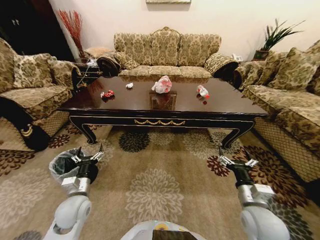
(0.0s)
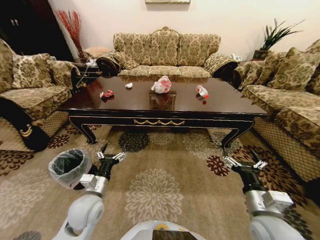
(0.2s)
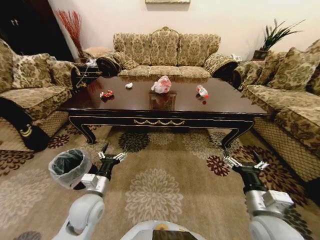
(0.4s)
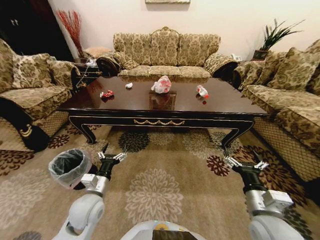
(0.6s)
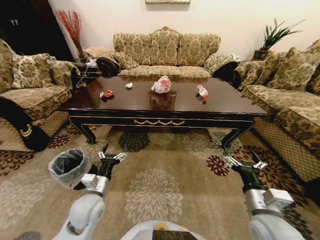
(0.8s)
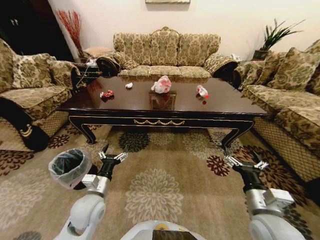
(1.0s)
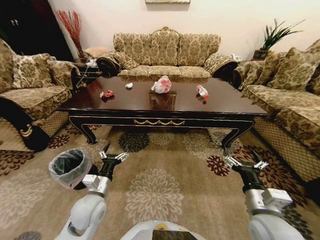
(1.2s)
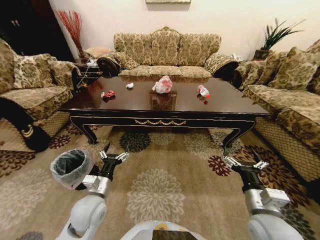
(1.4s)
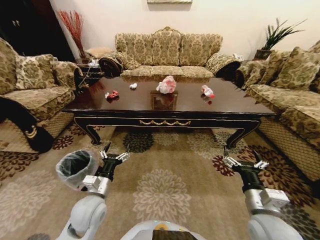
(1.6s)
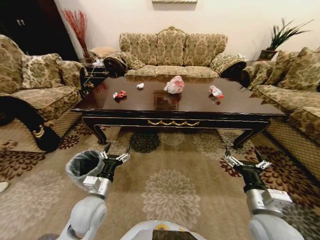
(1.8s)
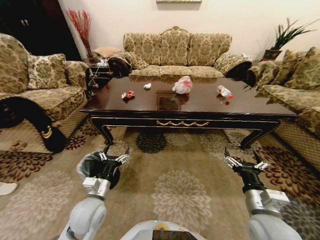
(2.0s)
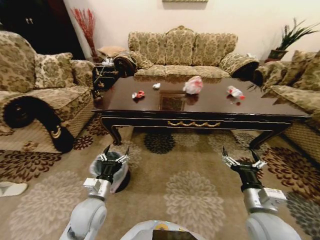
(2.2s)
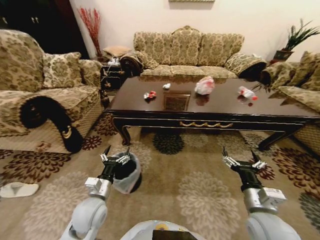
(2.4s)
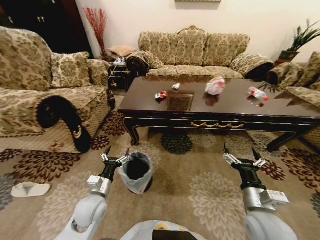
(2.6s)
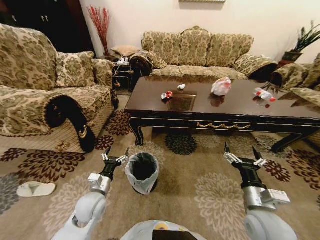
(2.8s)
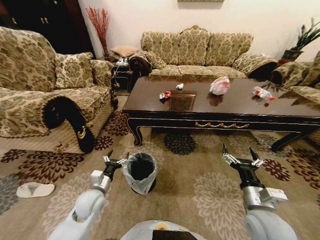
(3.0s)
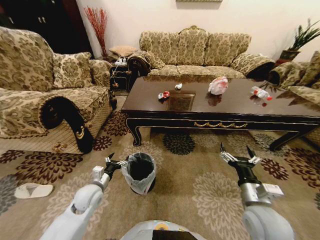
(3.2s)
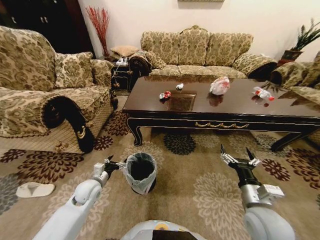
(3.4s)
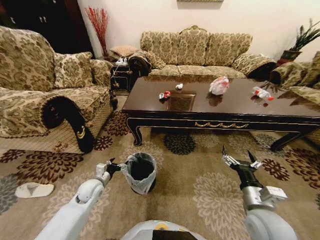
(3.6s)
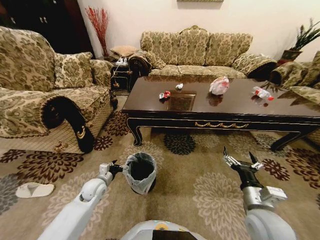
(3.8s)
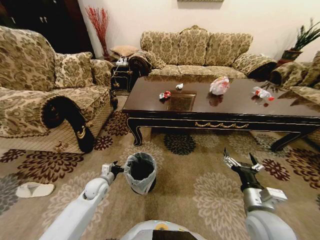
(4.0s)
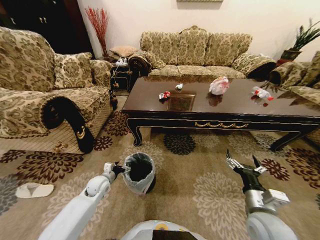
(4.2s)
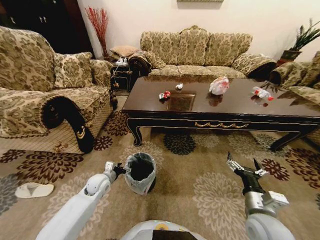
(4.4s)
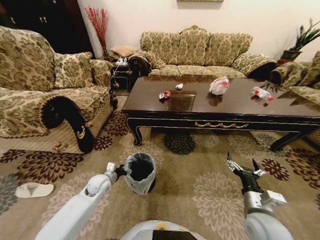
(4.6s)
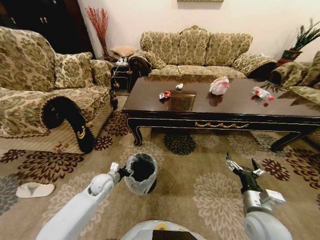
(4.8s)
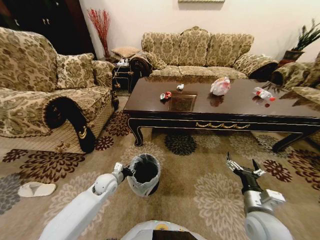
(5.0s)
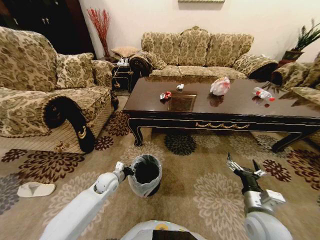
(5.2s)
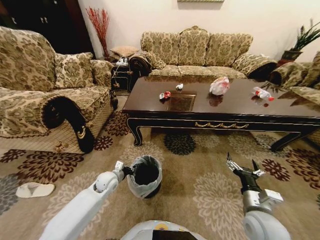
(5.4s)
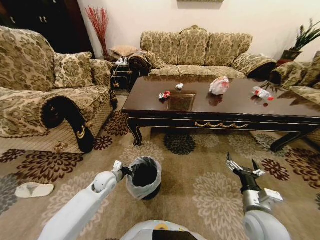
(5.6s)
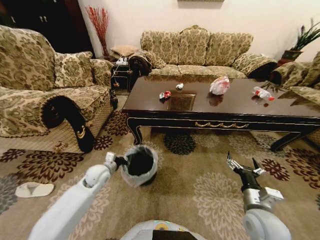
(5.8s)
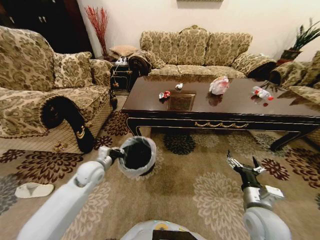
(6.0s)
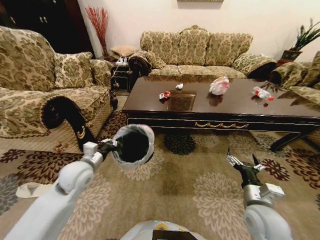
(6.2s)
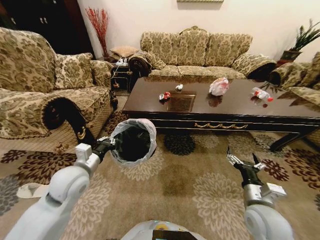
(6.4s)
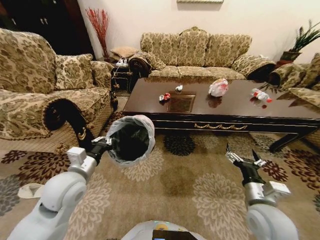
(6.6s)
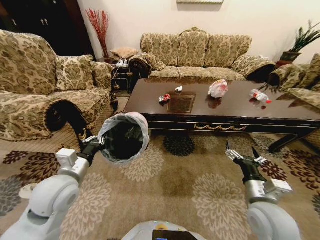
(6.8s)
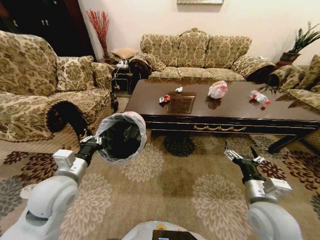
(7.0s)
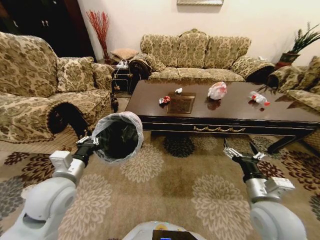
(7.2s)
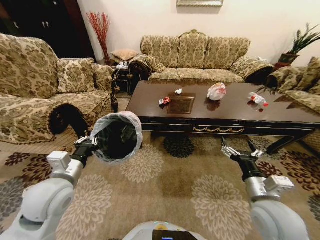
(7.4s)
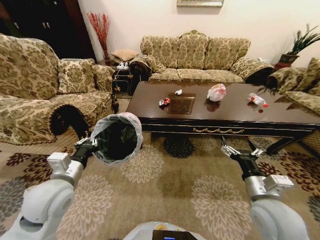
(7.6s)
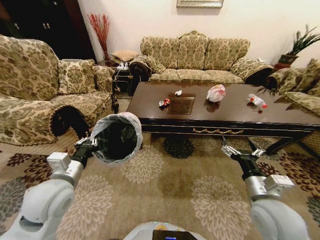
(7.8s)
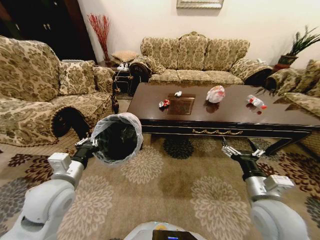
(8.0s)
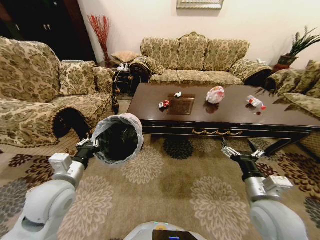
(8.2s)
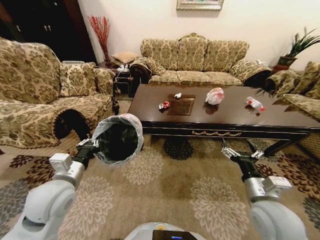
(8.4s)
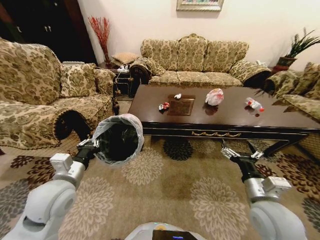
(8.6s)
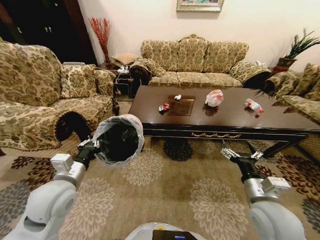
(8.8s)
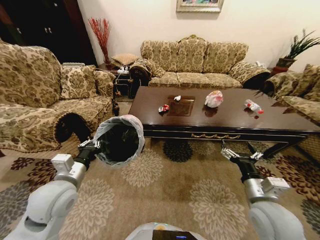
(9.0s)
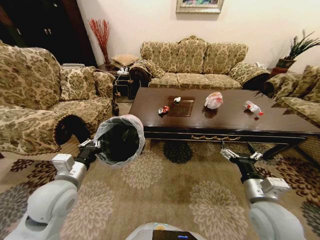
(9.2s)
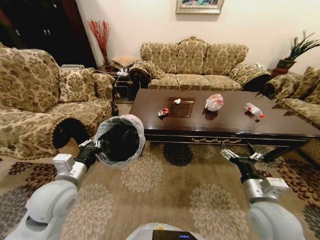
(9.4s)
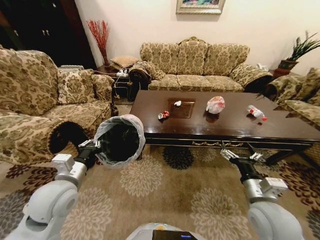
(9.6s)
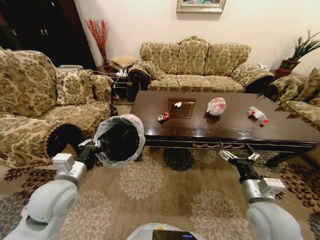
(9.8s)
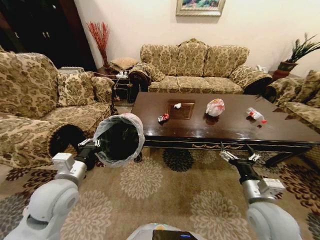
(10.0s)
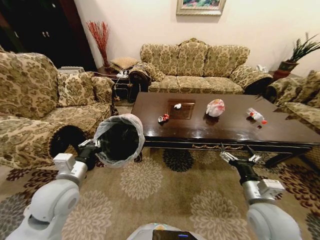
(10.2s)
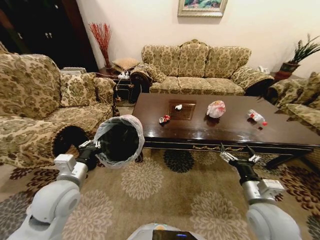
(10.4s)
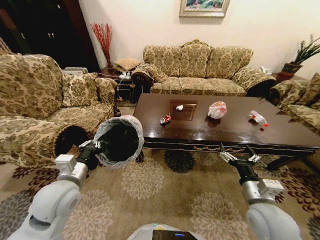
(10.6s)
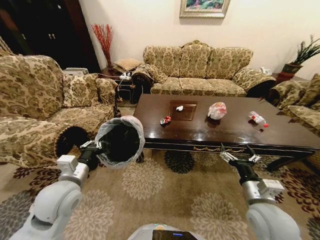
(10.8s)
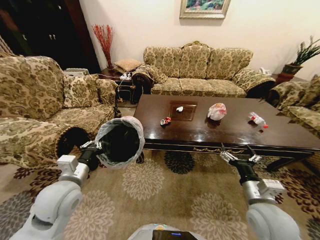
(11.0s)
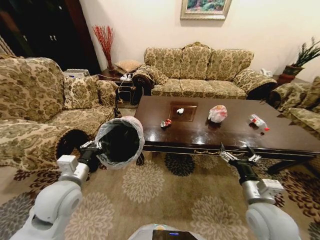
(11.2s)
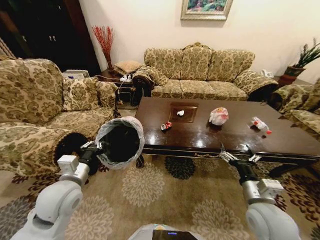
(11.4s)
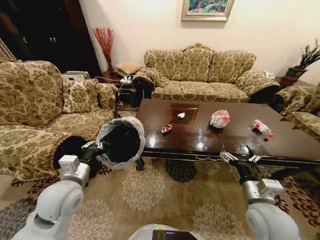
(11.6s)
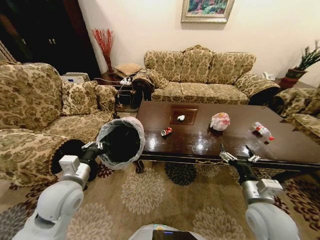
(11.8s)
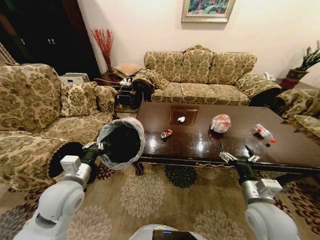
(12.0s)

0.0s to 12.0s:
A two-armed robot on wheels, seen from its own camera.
Task of the whole recording: Move to the front of the table and place the trash on the table into the trash bin.
1.6s to 3.0s: The left gripper moves downward, some 5 cm.
3.0s to 4.4s: The left gripper is displaced forward by roughly 10 cm.
4.4s to 6.0s: The left gripper goes approximately 10 cm upward, and closes its fingers.
6.0s to 7.6s: The left gripper travels backward and upward by about 15 cm. Meanwhile the right gripper moves upward, roughly 5 cm.

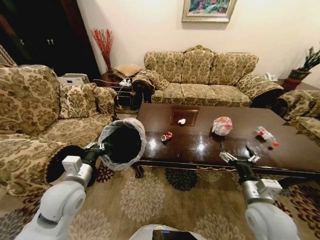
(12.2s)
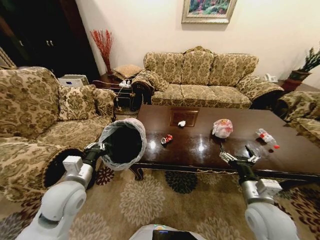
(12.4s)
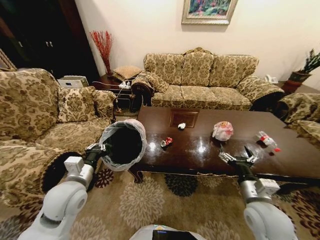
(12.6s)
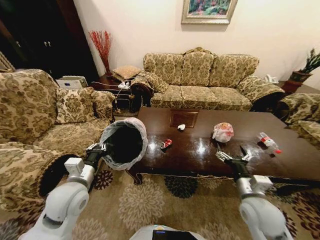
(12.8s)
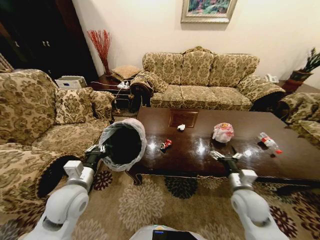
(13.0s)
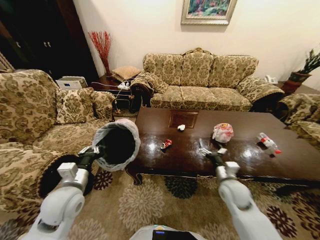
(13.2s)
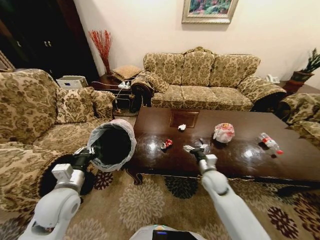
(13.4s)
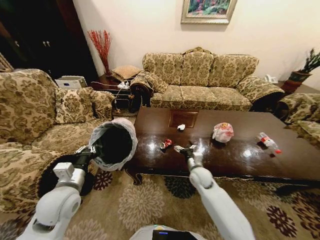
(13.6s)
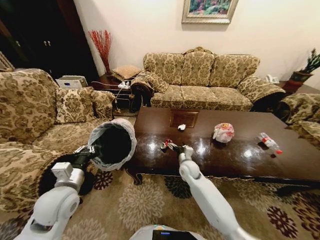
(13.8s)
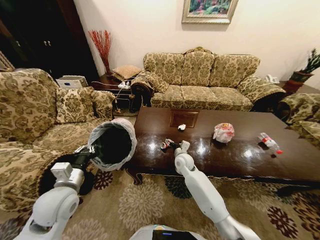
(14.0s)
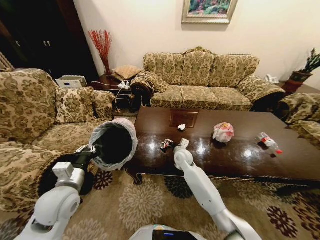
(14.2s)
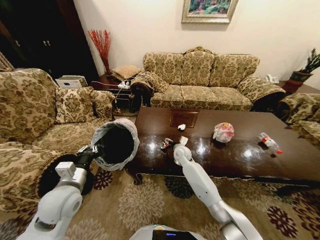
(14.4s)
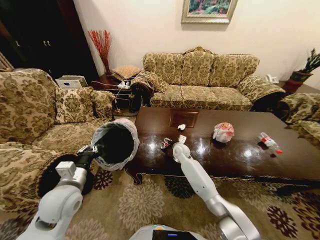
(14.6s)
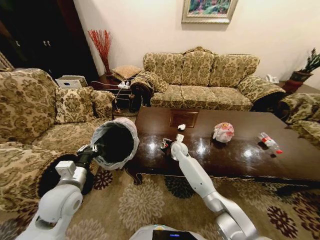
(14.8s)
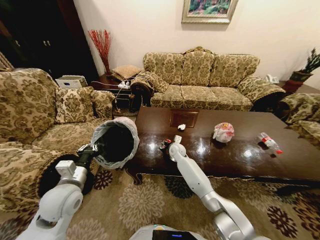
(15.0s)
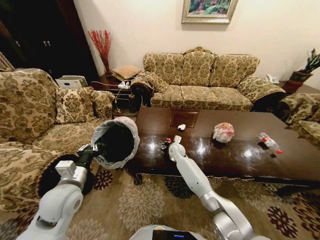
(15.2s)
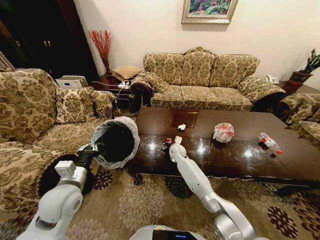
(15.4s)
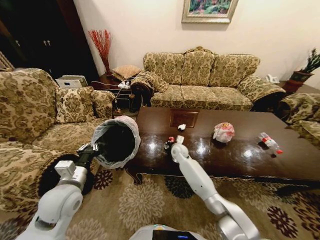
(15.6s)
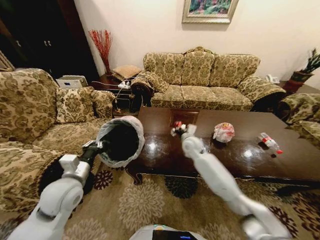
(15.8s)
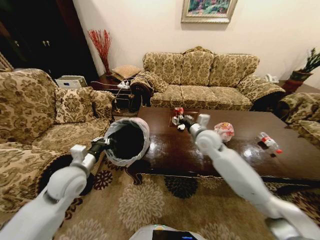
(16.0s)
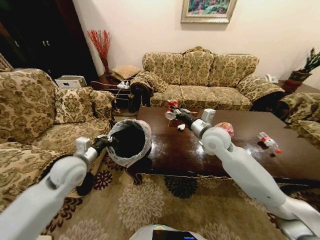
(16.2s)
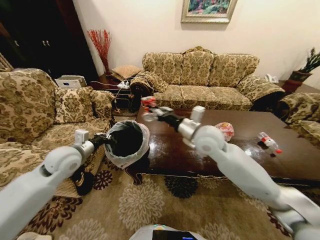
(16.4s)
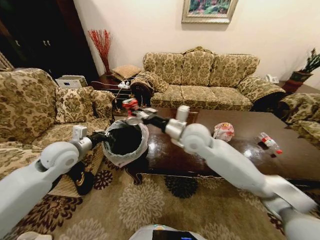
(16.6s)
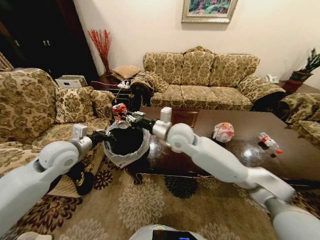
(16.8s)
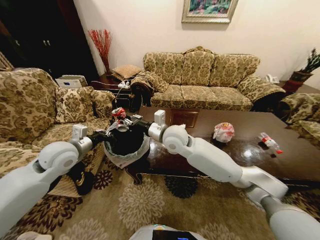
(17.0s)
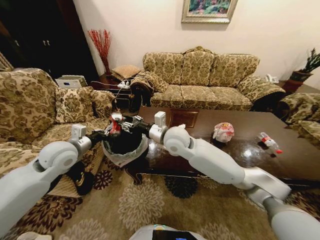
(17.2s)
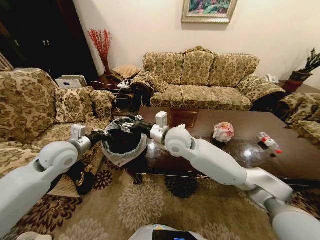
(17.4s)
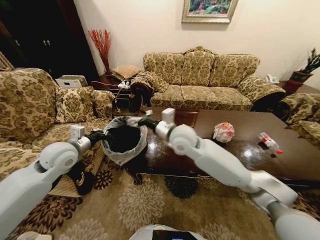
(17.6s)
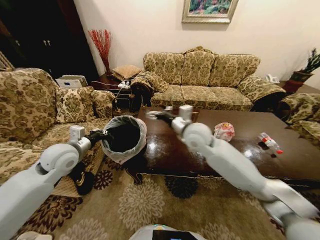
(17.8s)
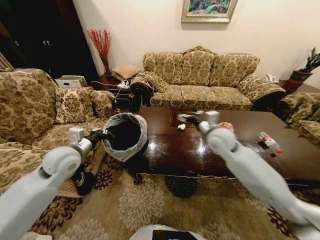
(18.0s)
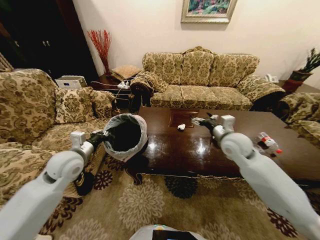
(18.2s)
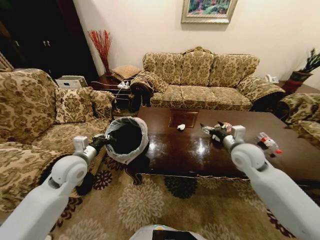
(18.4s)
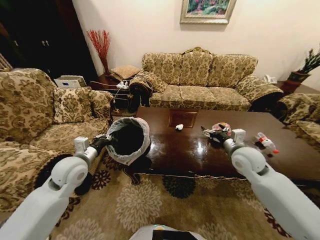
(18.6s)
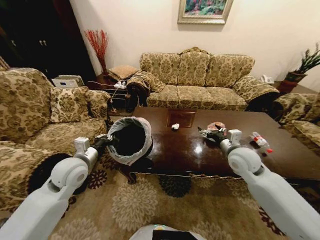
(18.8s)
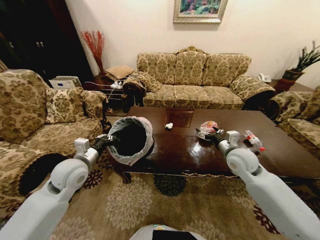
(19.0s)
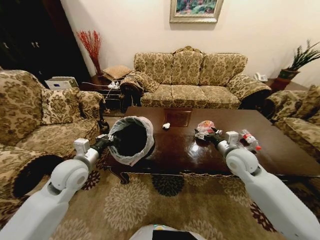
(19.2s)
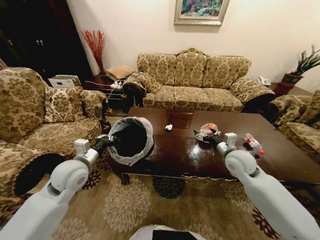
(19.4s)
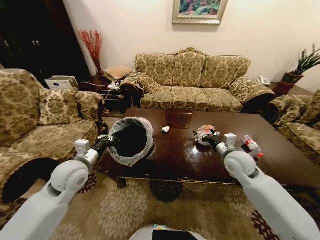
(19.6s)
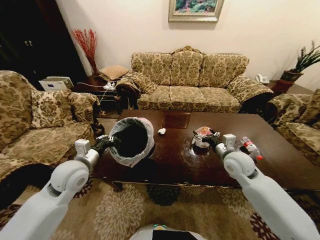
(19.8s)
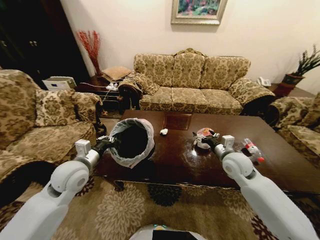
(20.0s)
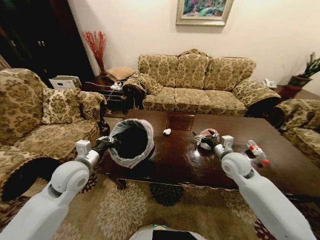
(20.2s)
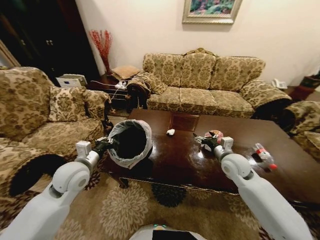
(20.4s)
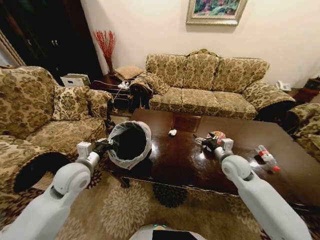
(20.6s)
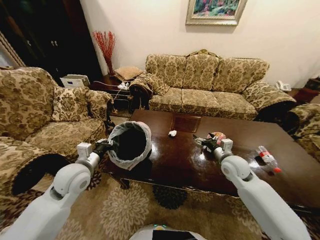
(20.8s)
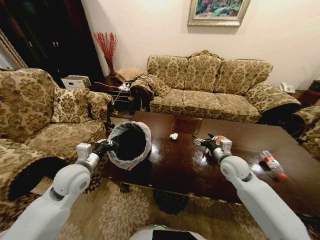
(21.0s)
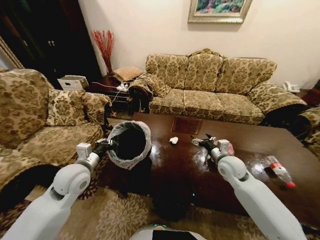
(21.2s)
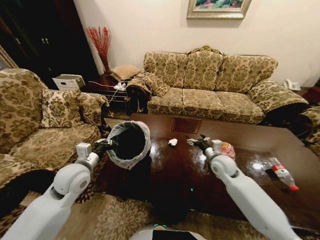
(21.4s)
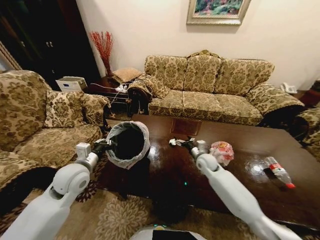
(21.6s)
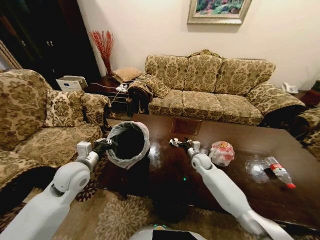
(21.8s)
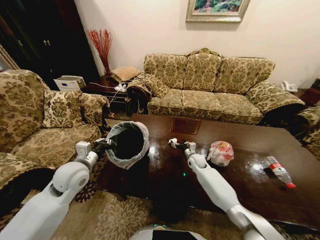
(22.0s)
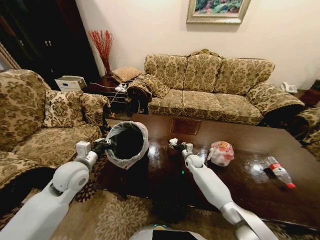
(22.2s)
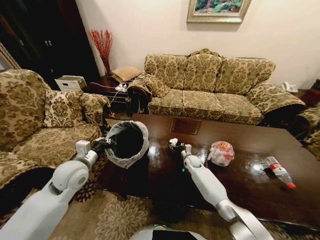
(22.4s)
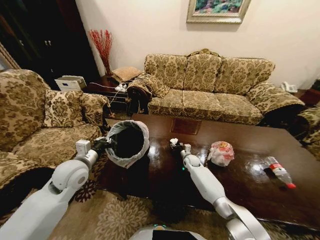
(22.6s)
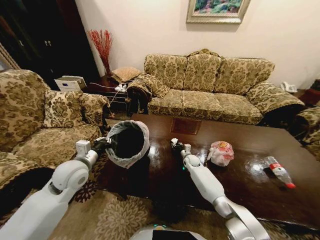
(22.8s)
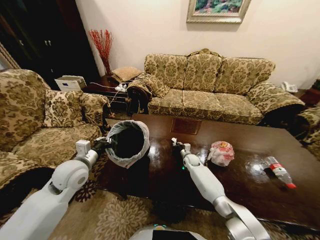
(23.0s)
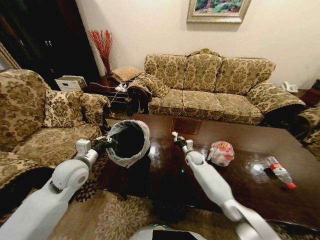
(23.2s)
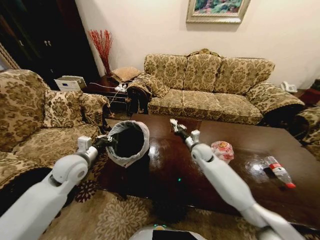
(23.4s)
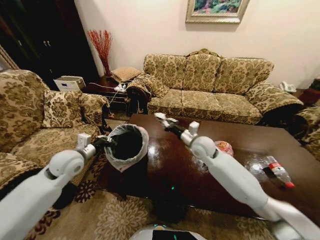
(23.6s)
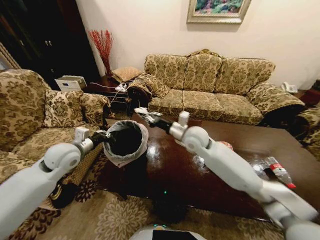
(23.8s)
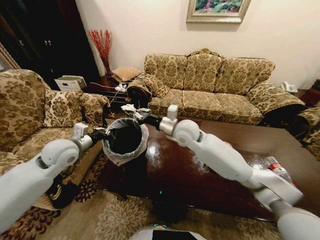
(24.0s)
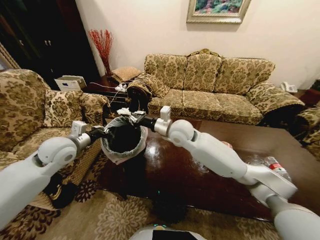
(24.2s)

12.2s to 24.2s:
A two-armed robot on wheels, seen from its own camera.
Task of the whole recording: Move to the front of the table and place the trash on the table into the trash bin.
12.2s to 13.8s: The right gripper moves forward, to the left and downward, about 30 cm.
13.8s to 15.2s: The right gripper heads forward and to the left, covering about 15 cm, and closes up.
15.2s to 16.6s: The right gripper heads upward and backward, covering some 30 cm. The left gripper moves forward and upward, approximately 15 cm.
16.6s to 18.2s: The right gripper shifts some 20 cm to the right, and opens.
18.2s to 19.8s: The right gripper moves downward, some 5 cm.
21.2s to 22.6s: The right gripper heads downward, forward and to the left, covering some 25 cm, and closes up.
22.6s to 24.2s: The right gripper is displaced upward and to the left by about 35 cm, and closes. Meanwhile the left gripper heads upward and forward, covering roughly 10 cm.
